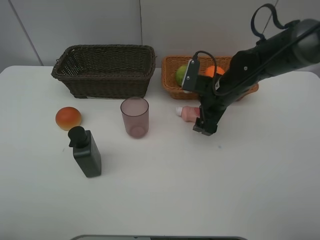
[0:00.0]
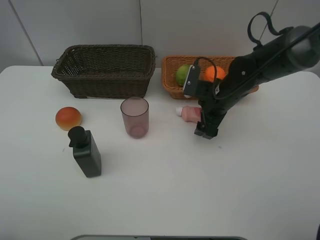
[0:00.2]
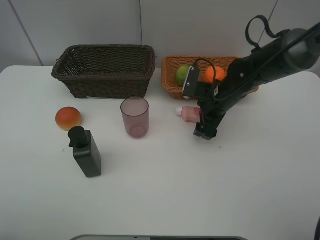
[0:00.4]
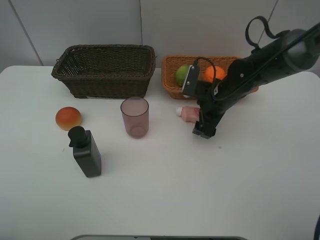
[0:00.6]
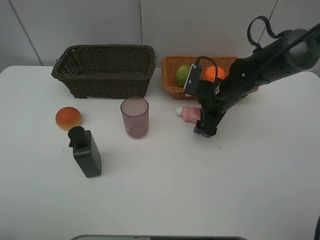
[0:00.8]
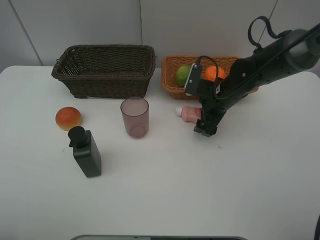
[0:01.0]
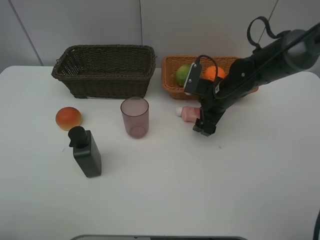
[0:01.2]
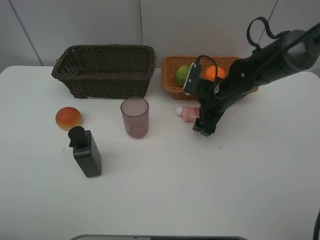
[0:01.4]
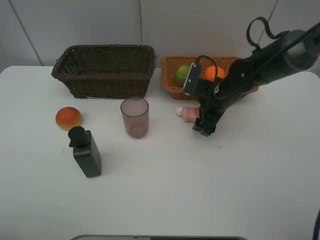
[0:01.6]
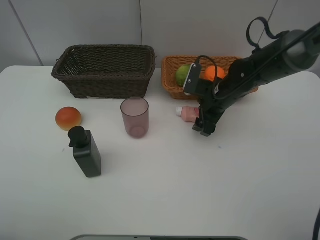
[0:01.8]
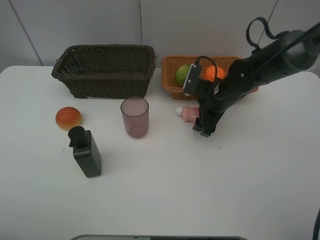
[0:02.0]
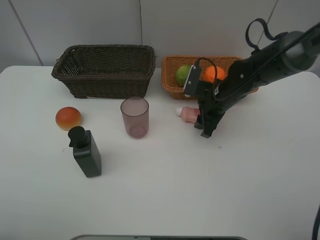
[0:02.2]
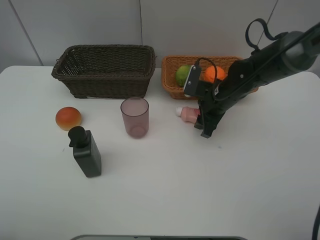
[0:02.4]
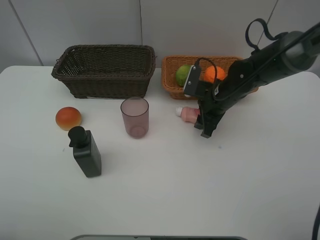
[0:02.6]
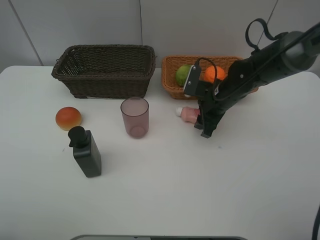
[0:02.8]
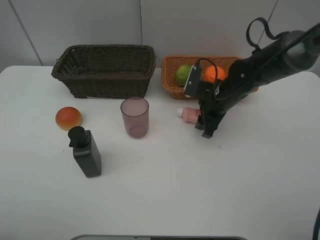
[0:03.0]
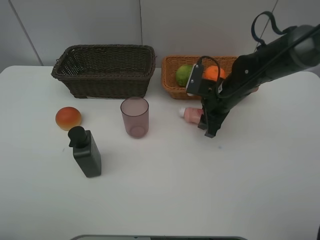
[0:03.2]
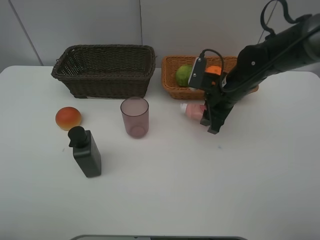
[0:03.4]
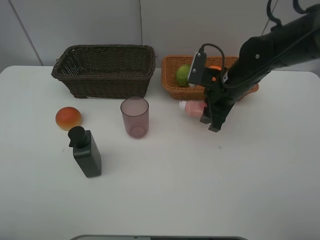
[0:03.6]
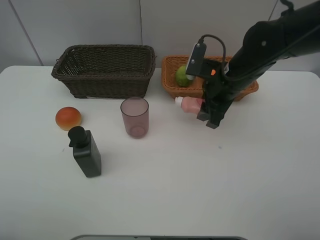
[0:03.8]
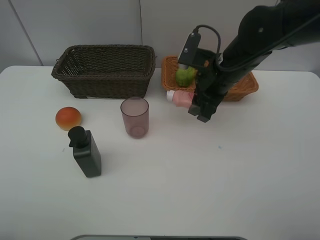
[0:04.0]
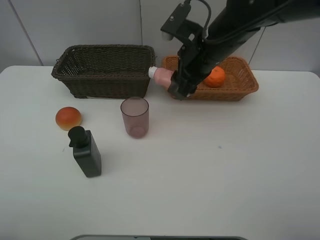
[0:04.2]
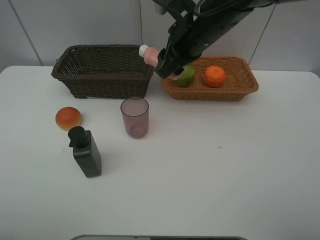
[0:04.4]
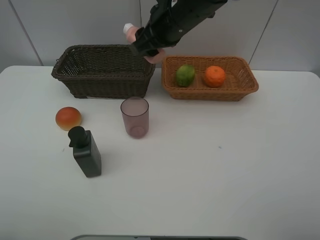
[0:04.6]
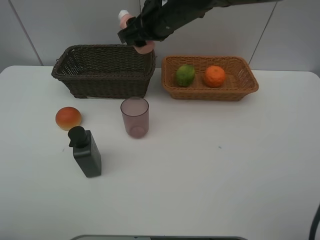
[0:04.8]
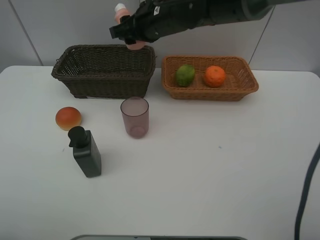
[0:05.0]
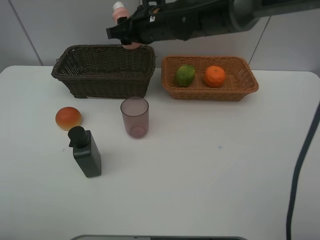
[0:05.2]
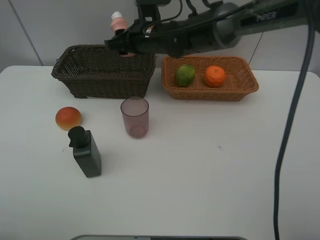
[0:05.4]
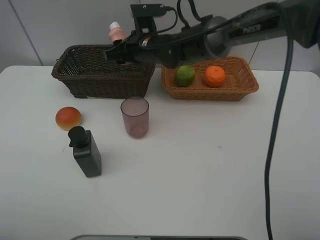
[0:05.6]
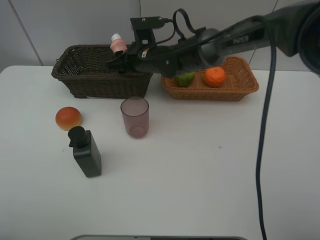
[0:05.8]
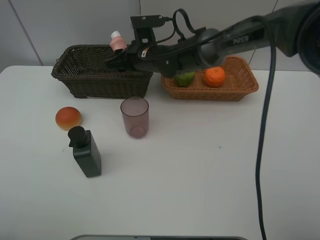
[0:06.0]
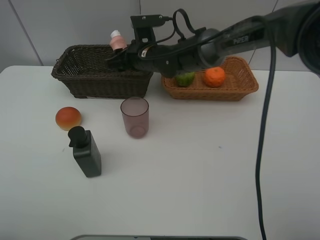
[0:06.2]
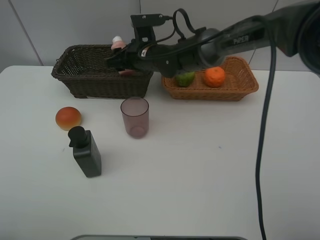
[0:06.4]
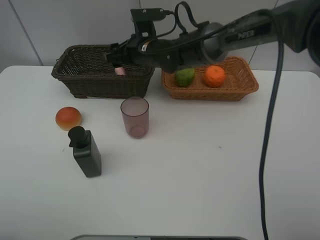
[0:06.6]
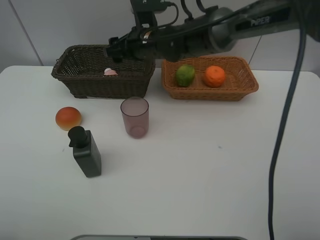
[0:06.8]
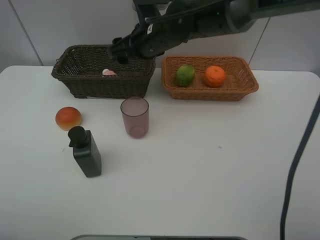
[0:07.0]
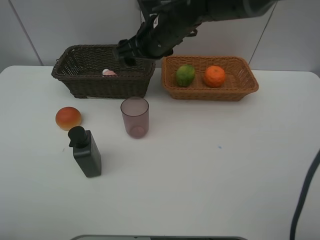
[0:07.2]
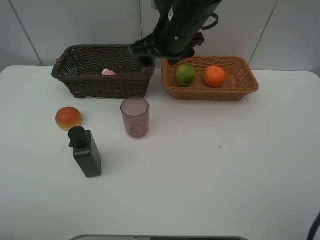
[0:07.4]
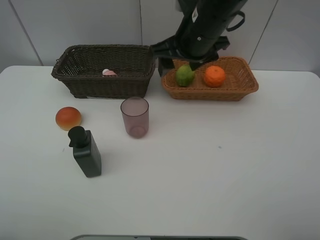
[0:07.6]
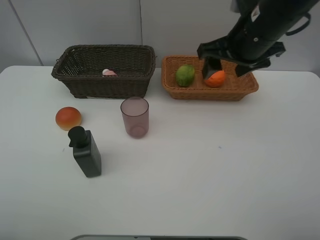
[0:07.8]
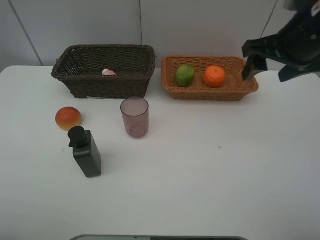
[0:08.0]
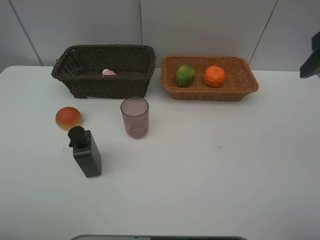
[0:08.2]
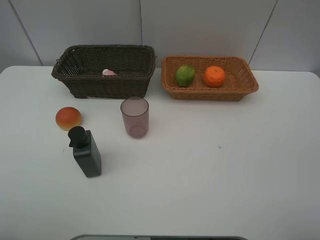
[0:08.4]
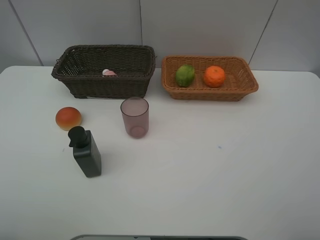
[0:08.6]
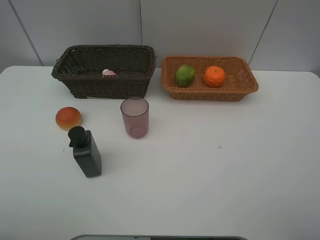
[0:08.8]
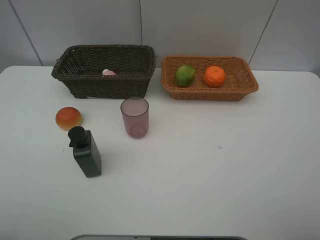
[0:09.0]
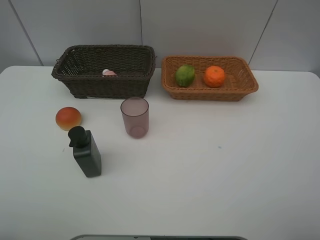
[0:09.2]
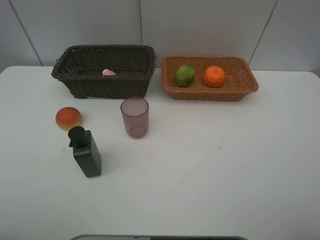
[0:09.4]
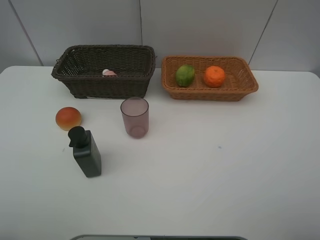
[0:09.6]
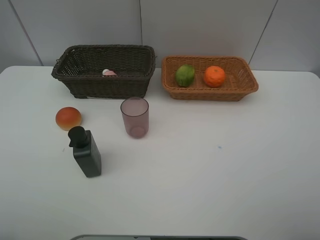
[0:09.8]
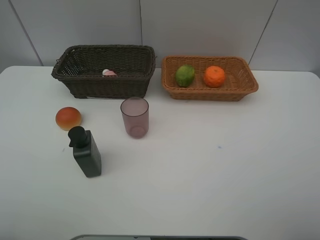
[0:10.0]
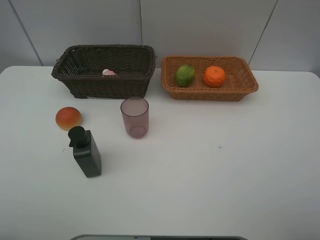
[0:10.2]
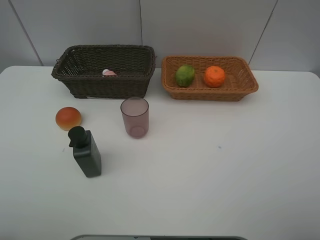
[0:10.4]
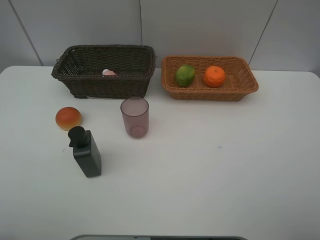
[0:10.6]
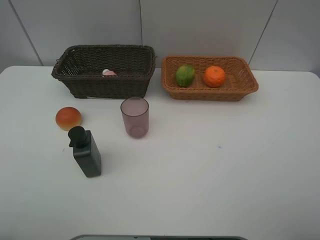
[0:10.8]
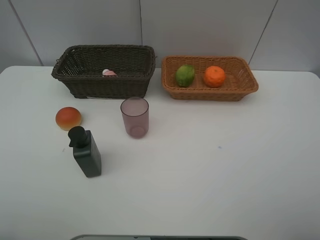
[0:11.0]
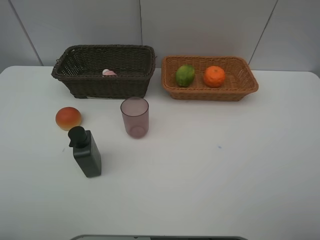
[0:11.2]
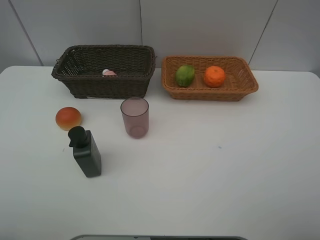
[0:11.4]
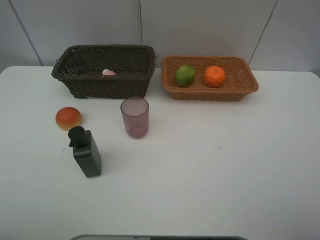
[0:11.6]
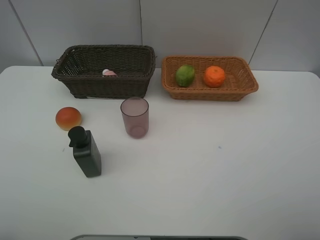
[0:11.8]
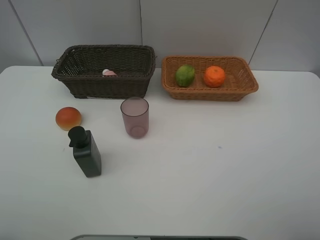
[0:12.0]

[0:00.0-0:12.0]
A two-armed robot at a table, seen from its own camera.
Task of the whole recording: place multiple objects separately in different baskets.
0:00.0 to 0:01.6: There are only small adjustments of the grippers.
0:03.0 to 0:04.4: The right gripper is displaced upward and to the left by some 20 cm.
0:04.4 to 0:06.0: The right gripper is displaced downward, to the left and forward by approximately 15 cm.
0:06.0 to 0:07.6: The right gripper is displaced upward, to the right and backward by approximately 15 cm, and opens up.
0:07.6 to 0:09.0: The right gripper heads backward and to the right, covering roughly 40 cm.

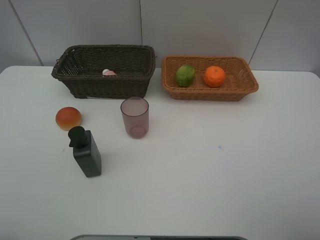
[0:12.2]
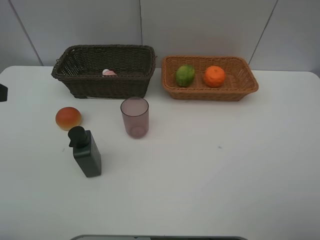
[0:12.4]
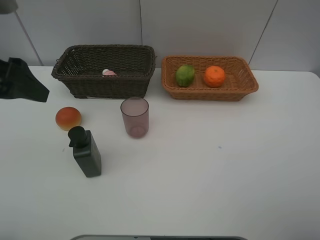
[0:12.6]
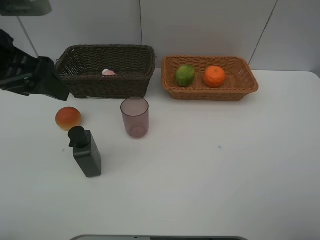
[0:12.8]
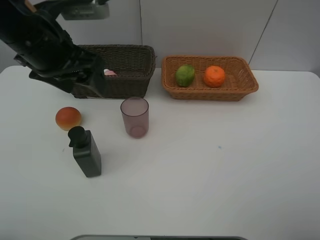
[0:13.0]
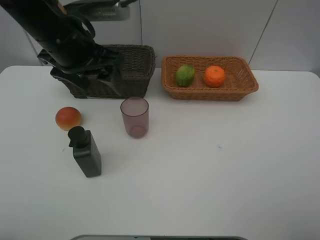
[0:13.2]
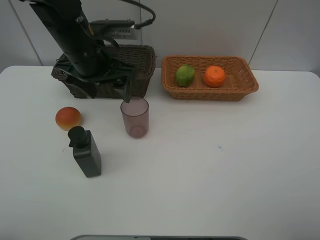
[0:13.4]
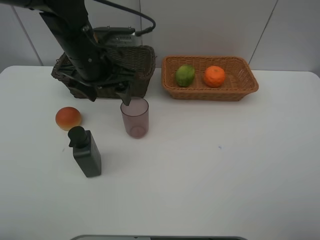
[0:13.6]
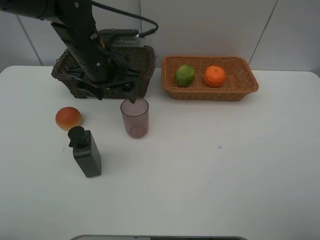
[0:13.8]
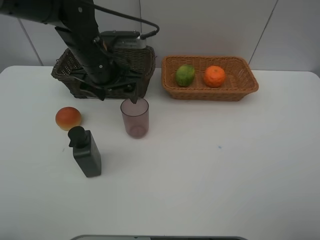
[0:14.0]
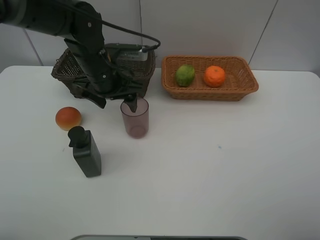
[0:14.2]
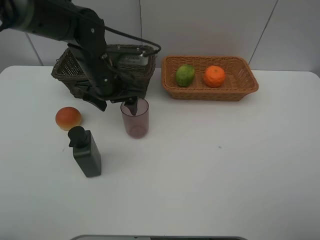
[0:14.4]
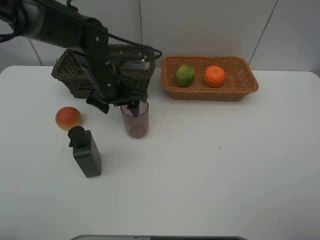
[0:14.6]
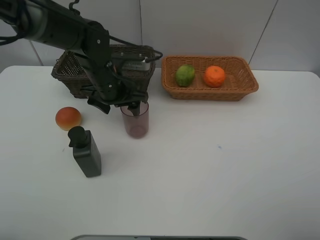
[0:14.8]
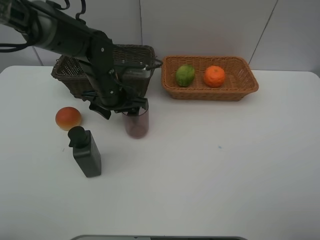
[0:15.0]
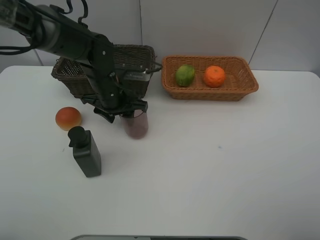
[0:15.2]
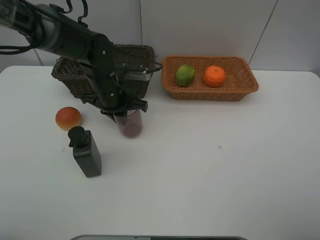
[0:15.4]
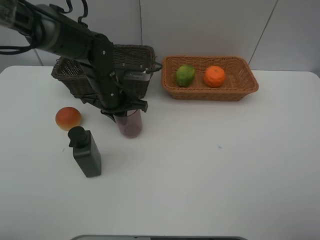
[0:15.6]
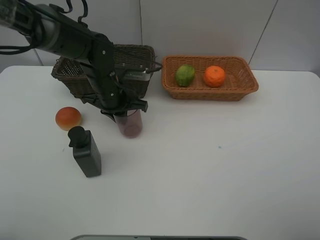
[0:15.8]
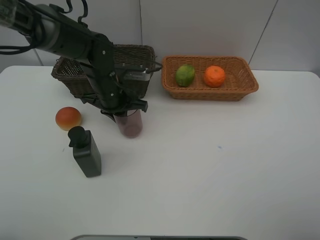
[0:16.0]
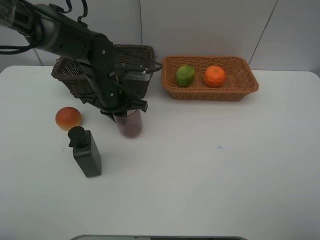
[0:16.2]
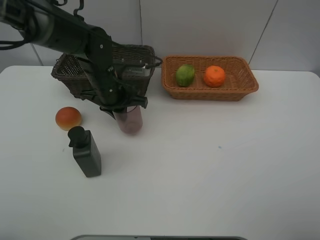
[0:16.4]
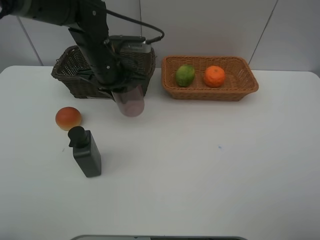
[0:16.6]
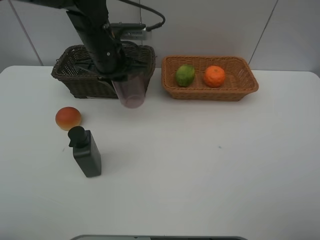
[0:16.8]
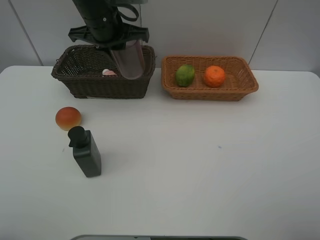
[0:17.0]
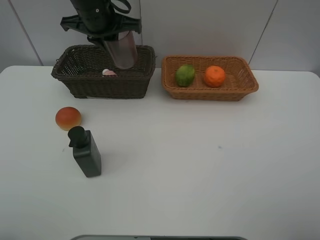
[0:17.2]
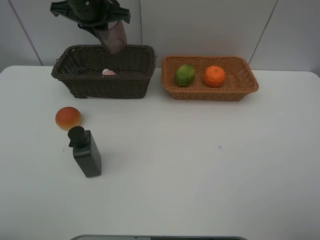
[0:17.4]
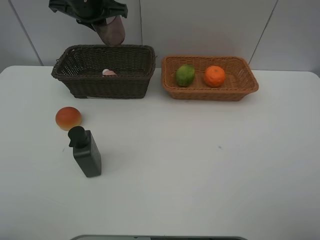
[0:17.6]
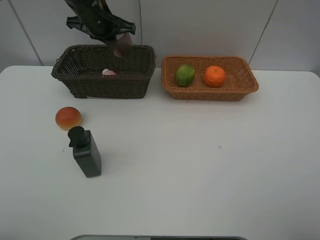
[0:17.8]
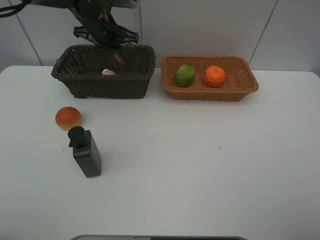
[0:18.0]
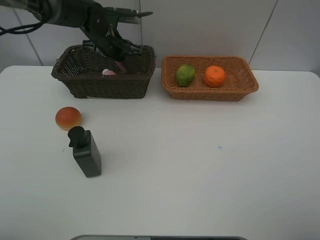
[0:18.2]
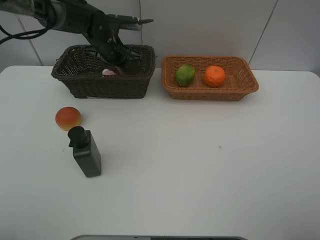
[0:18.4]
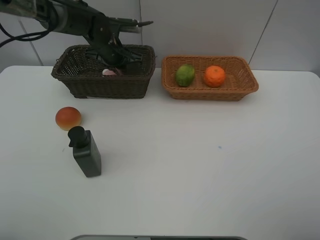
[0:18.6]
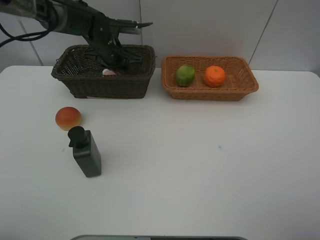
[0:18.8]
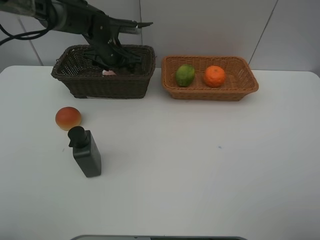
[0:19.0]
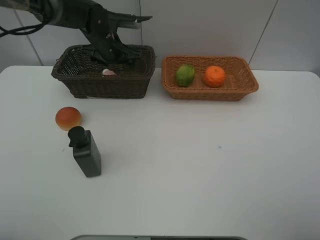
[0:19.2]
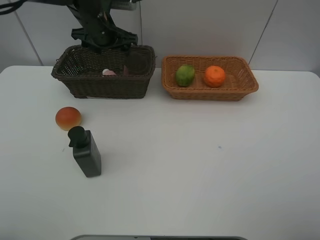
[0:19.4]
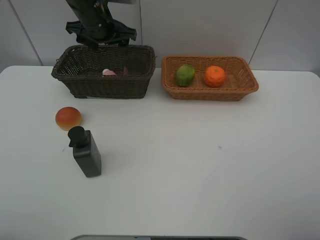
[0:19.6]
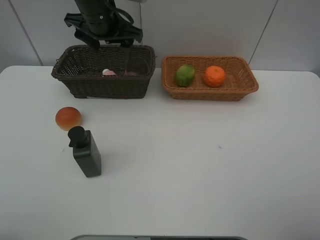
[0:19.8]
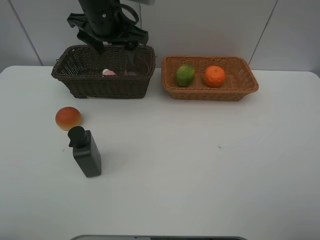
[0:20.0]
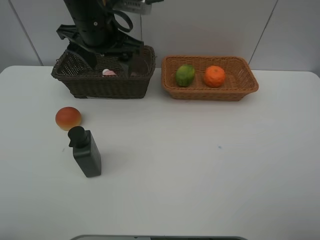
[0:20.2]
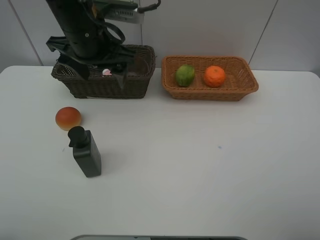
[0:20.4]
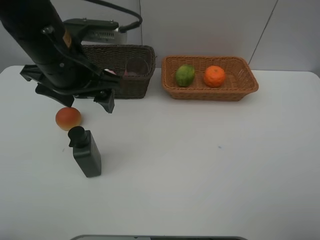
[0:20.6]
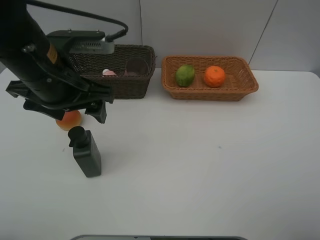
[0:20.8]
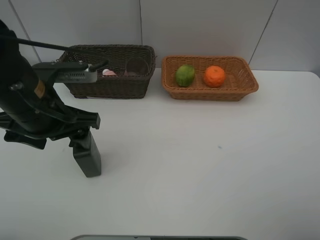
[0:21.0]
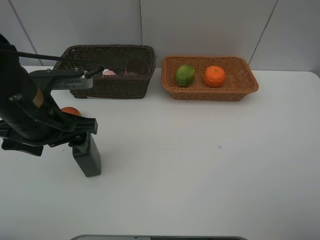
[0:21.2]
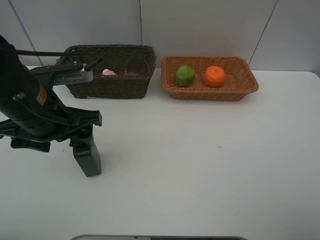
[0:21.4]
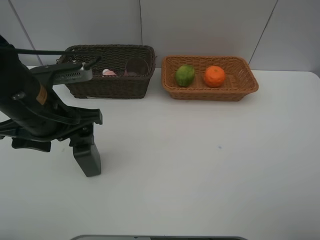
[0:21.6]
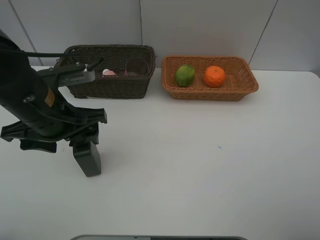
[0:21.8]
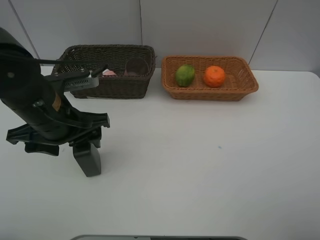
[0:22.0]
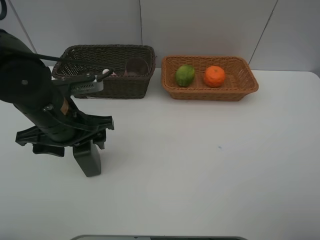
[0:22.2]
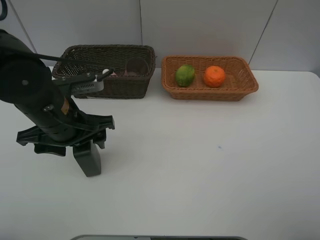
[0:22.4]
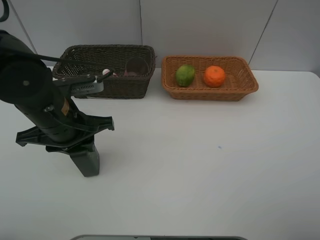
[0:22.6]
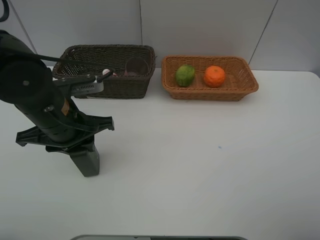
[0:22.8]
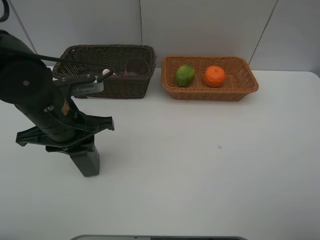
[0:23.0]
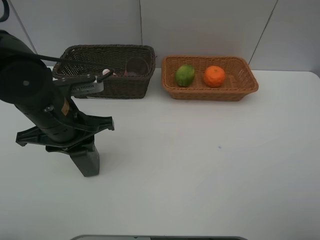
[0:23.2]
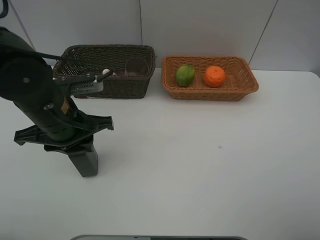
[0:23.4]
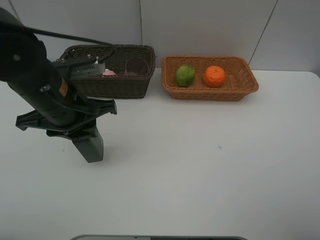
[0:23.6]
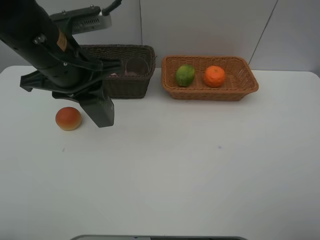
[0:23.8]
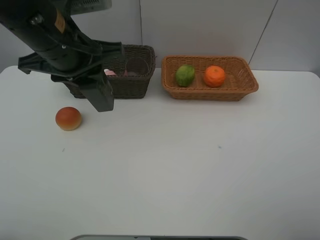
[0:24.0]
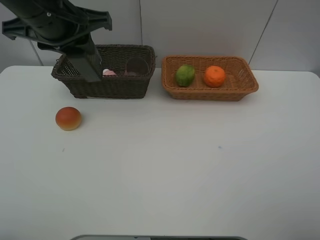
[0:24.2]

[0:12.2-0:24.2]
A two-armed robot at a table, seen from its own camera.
Task of the whole recording: place multiple objects separately in different baskets.
0:12.2 to 0:13.8: The left gripper moves forward, to the right and downward, roughly 30 cm.
0:13.8 to 0:15.2: The left gripper travels downward by approximately 10 cm, and closes up.
0:15.2 to 0:16.6: The left gripper heads upward, covering some 5 cm, and closes up.
0:16.6 to 0:18.2: The left gripper heads forward, covering about 10 cm.
0:18.2 to 0:19.8: The left gripper shifts roughly 10 cm upward and backward, and opens its fingers.
0:19.8 to 0:21.2: The left gripper moves backward, roughly 20 cm.
0:21.2 to 0:22.6: The left gripper closes its fingers.
0:22.6 to 0:24.2: The left gripper goes about 15 cm upward and forward.
